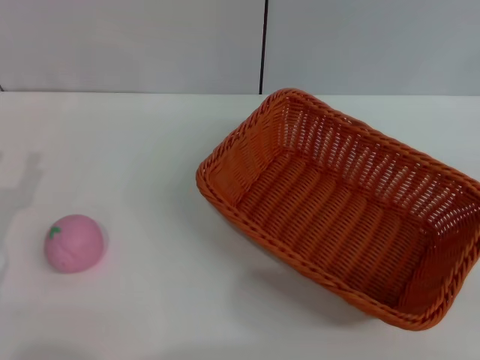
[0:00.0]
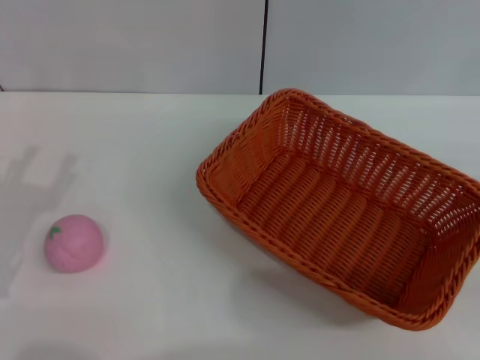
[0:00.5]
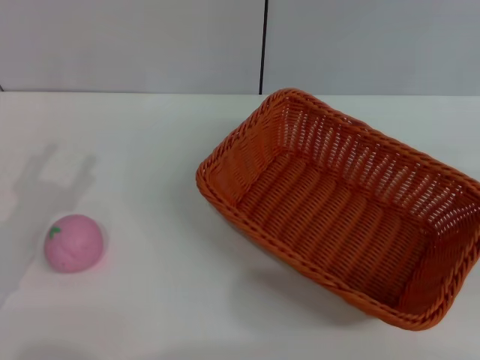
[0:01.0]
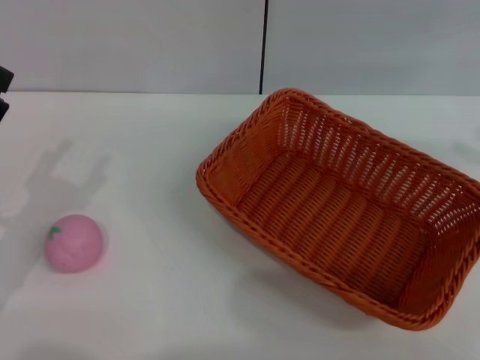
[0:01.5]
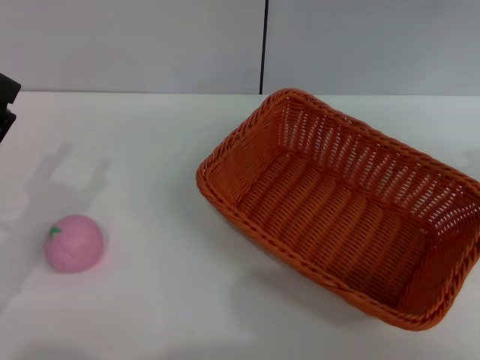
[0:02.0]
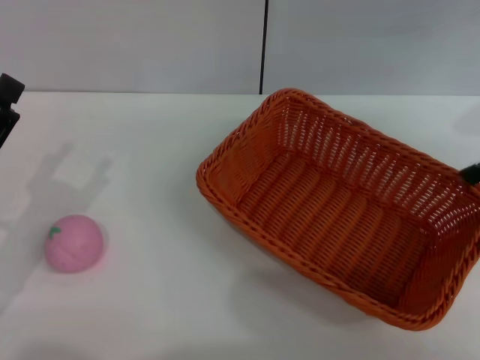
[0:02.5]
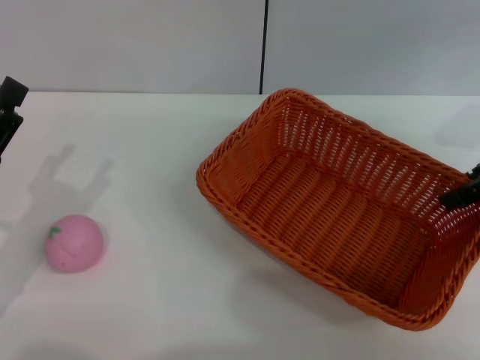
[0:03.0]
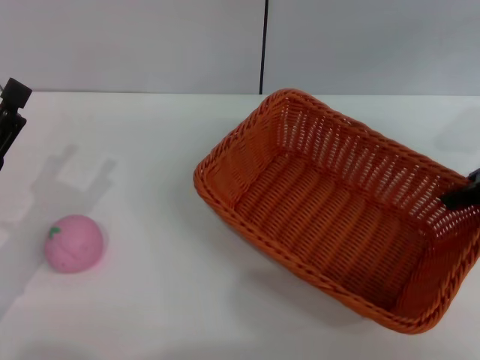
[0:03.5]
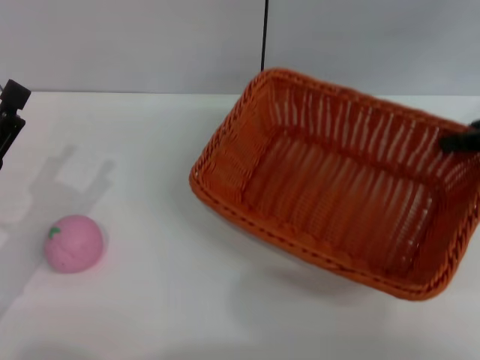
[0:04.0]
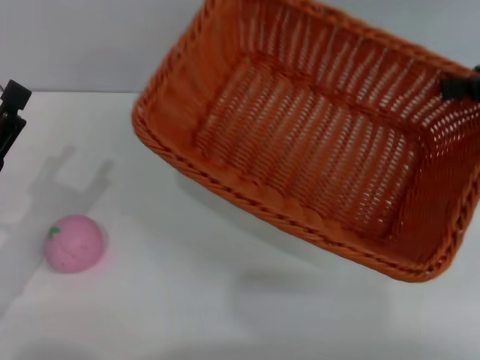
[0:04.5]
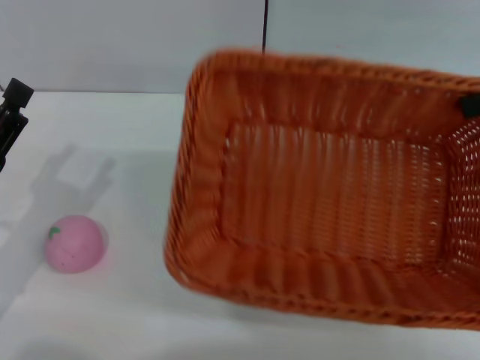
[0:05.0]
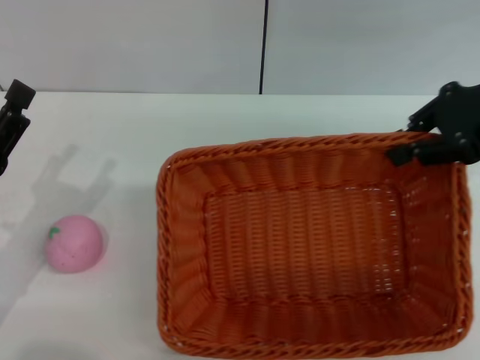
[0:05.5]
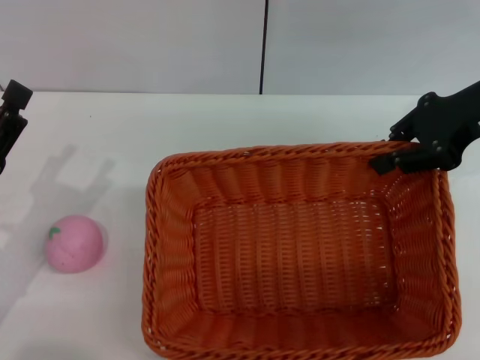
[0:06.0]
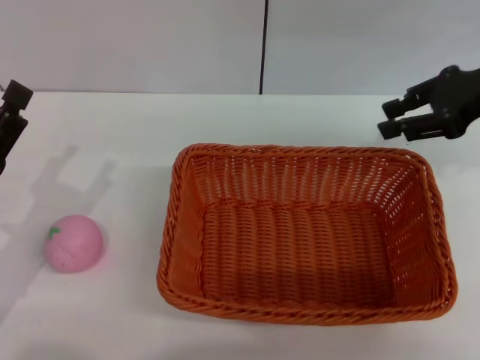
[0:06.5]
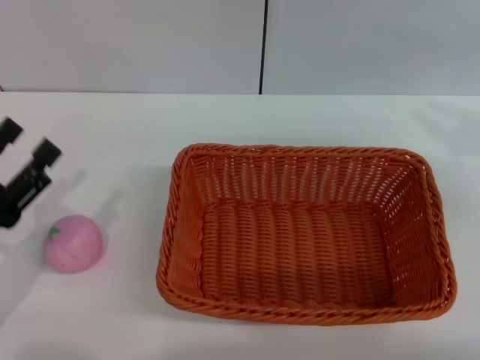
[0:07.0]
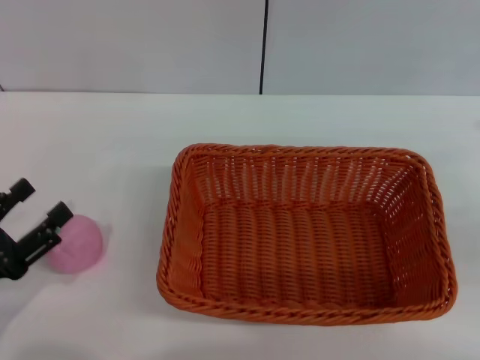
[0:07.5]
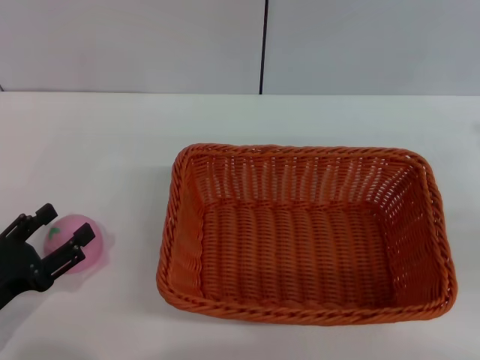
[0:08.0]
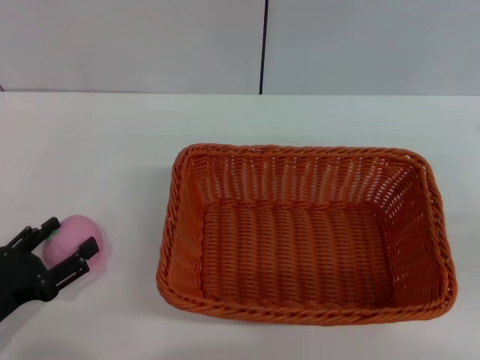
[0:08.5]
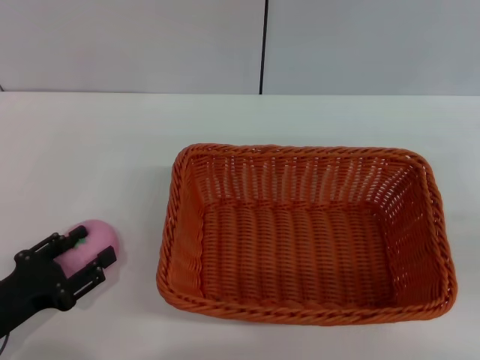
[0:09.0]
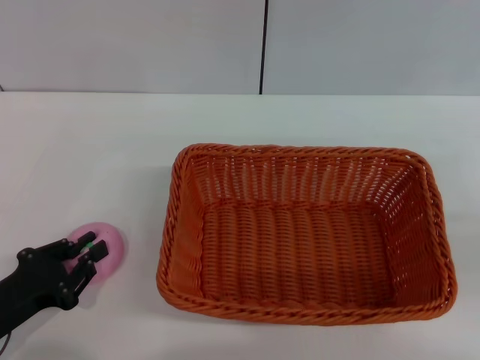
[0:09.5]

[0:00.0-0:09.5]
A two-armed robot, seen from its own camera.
Step, 0:00.0 to 0:03.5: Pick up the light basket with the right gripper.
Step, 0:04.0 to 0:06.0: Place the light basket in the center of view with the right gripper.
0:00.0 to 0:02.0: The right gripper heads upward and forward, covering some 25 cm, and opens up.
0:02.0 to 0:04.0: The right gripper is displaced downward by roughly 5 cm, and closes.
0:04.0 to 0:05.5: The right gripper moves to the left, some 5 cm.
0:05.5 to 0:07.5: The right gripper goes about 20 cm to the right, backward and downward. Meanwhile the left gripper changes place by roughly 5 cm.
0:07.5 to 0:09.5: The left gripper closes.

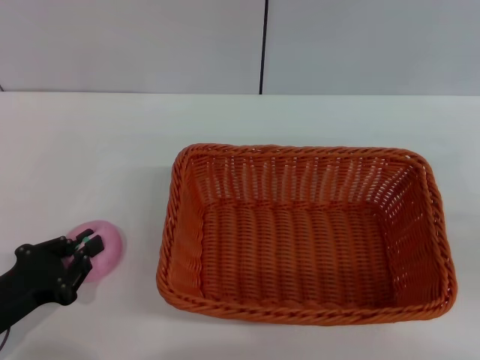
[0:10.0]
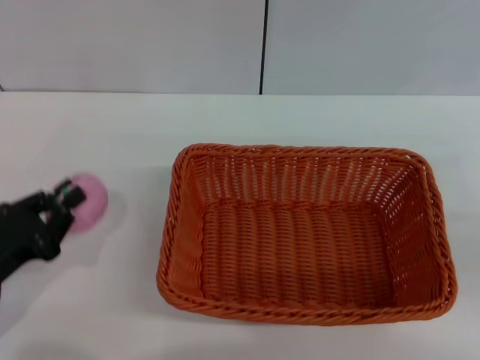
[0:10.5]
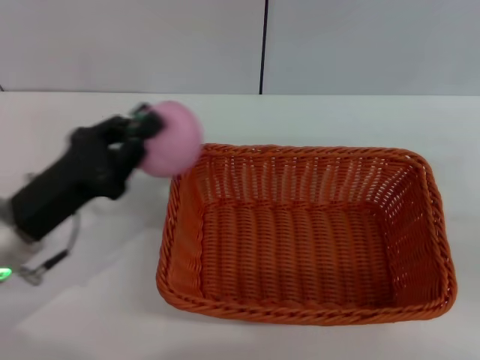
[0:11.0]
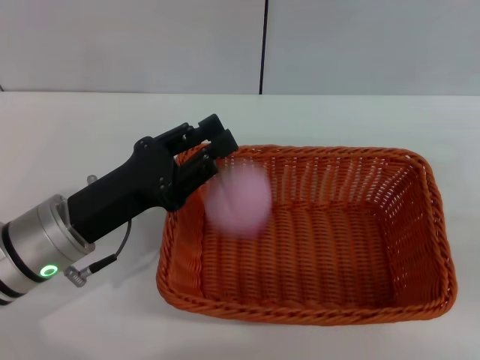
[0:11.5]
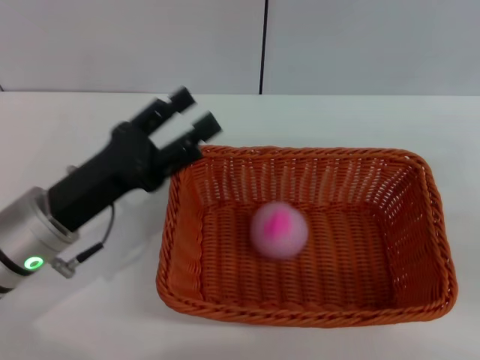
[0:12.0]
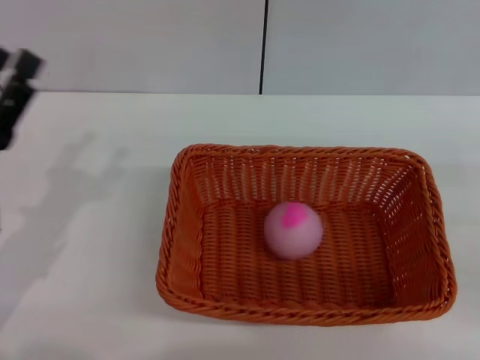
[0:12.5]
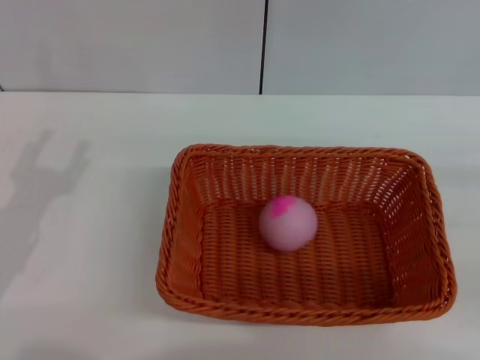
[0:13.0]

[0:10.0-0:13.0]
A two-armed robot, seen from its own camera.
Step, 0:11.0 to 0:12.0: Place the peach into the basket with the left gripper.
0:10.0 to 0:11.5: The left gripper goes some 15 cm to the right, forward and upward.
0:11.5 to 0:13.0: The left gripper moves to the left, some 10 cm, and opens.

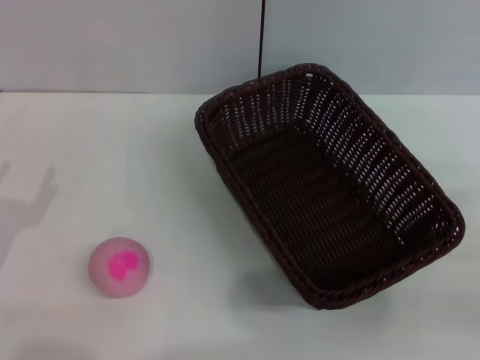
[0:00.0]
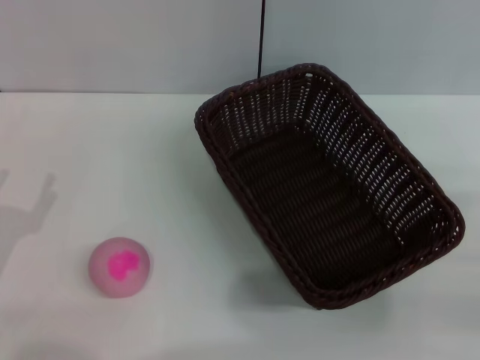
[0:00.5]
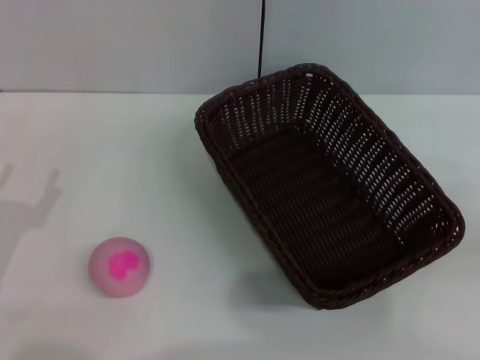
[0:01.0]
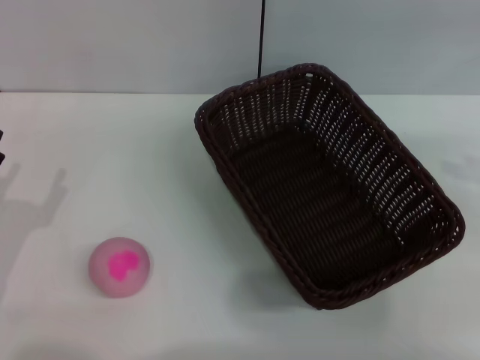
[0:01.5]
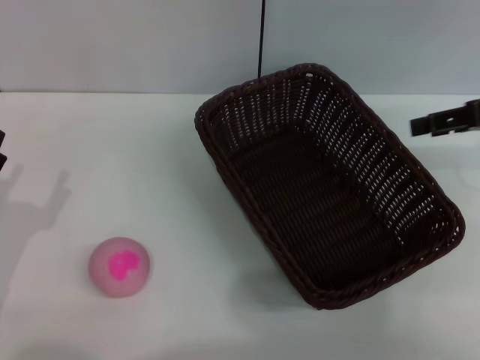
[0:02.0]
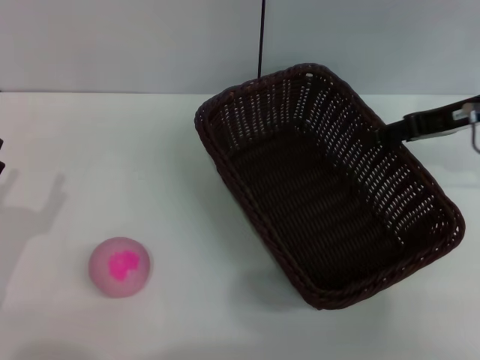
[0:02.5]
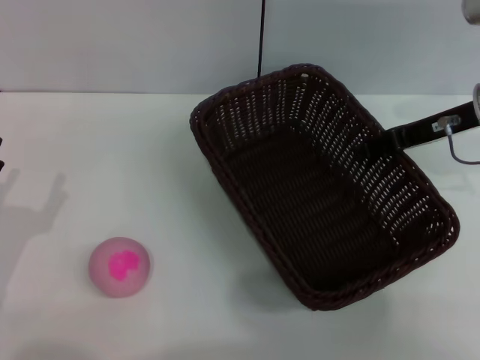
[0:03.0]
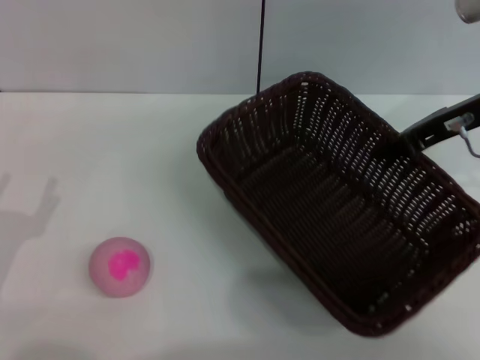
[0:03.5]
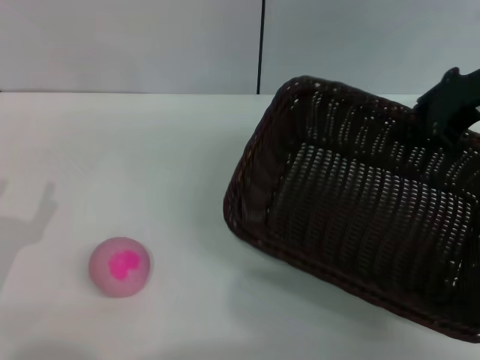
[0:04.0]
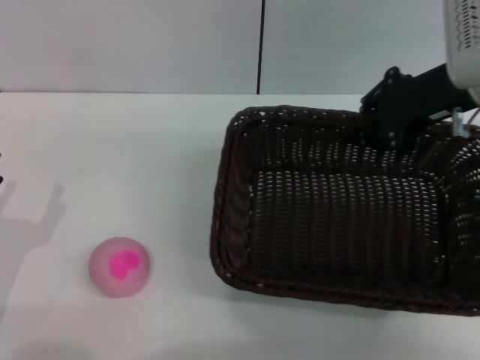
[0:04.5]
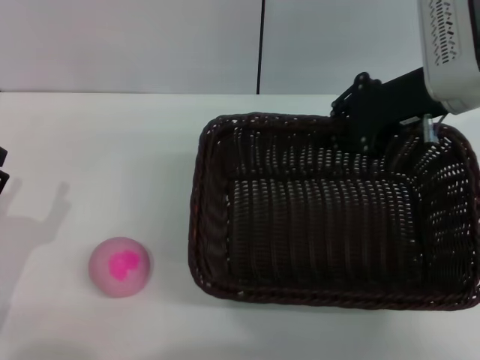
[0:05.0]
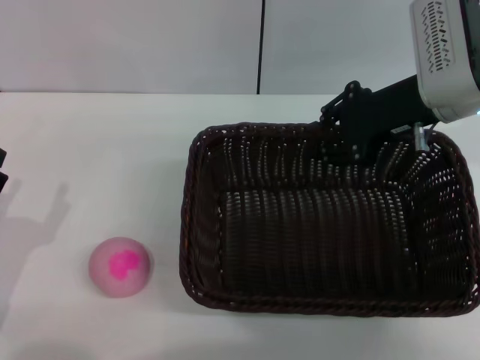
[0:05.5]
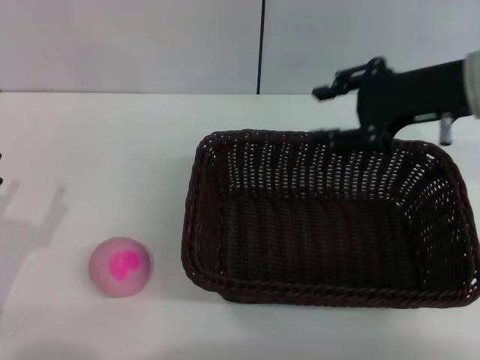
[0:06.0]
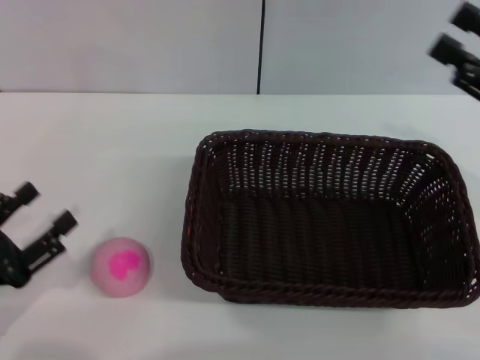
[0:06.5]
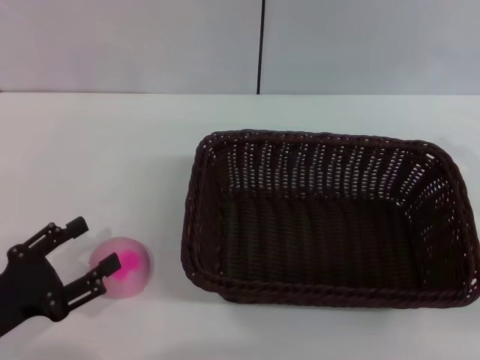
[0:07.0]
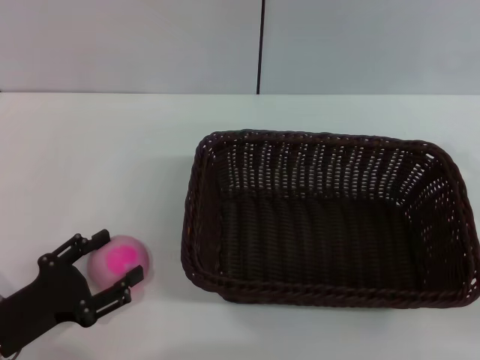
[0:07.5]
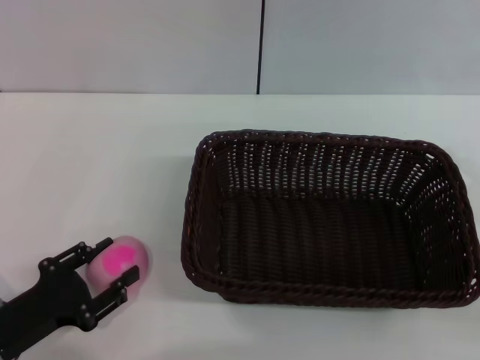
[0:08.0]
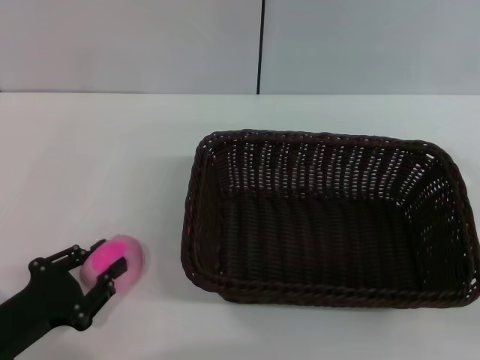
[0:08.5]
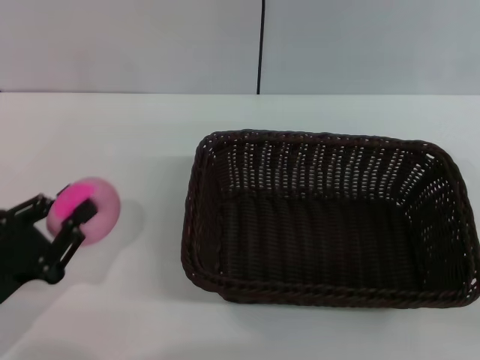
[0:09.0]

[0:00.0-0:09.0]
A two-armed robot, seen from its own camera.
Step, 0:00.0 to 0:03.5: Pick up the dark basket with the right gripper.
Step, 0:04.0 to 0:05.5: Place the dark basket in the center of view with the right gripper.
Step, 0:06.0 to 0:08.5: Pick up the peach with the left gripper.
0:00.0 to 0:02.0: The right gripper travels forward and upward by approximately 20 cm.
0:02.0 to 0:04.5: The right gripper shifts some 10 cm to the left, and closes.
0:04.5 to 0:07.0: The right gripper shifts roughly 20 cm backward, to the right and downward, and opens up.
0:07.0 to 0:09.0: The left gripper closes up.

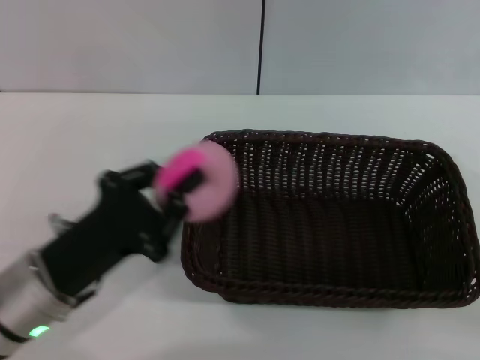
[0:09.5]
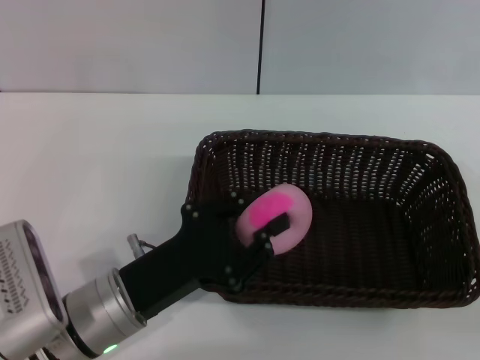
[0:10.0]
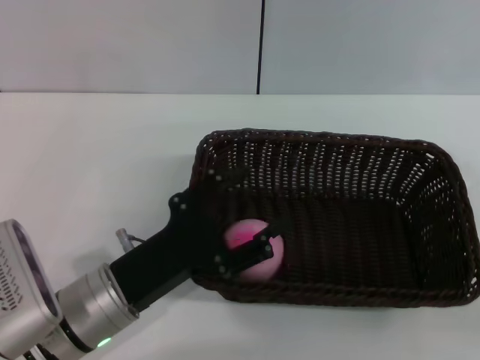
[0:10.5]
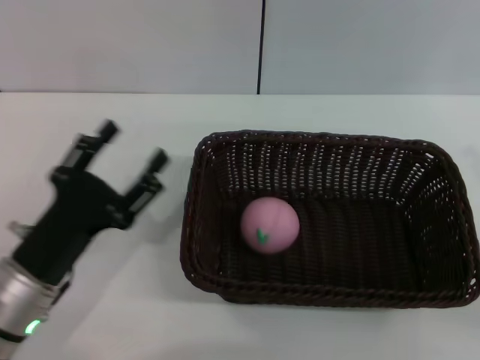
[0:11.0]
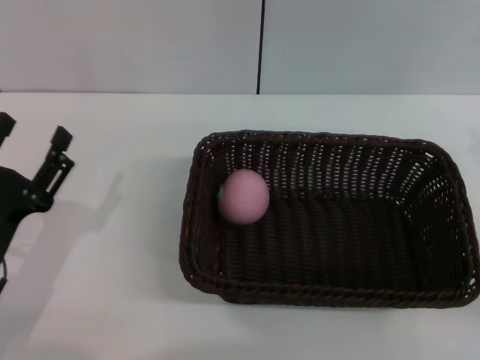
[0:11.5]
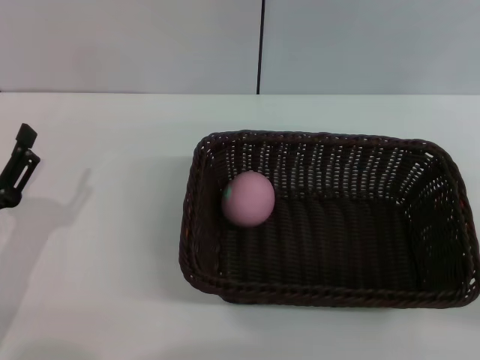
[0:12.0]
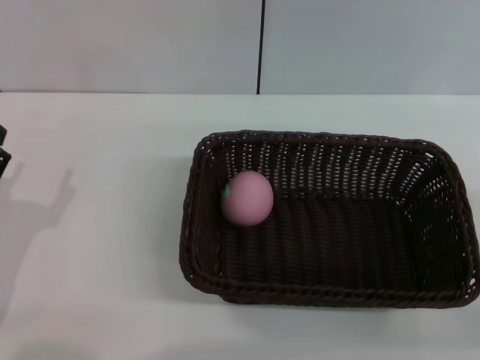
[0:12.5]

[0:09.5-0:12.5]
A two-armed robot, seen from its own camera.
Step, 0:09.5 to 0:10.5: Place the peach into the basket with the left gripper.
0:09.5 to 0:11.0: The left gripper opens up.
0:11.0 to 0:12.5: The left gripper goes some 10 cm to the left.
